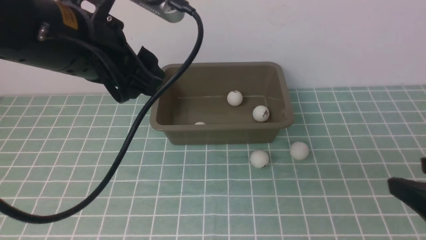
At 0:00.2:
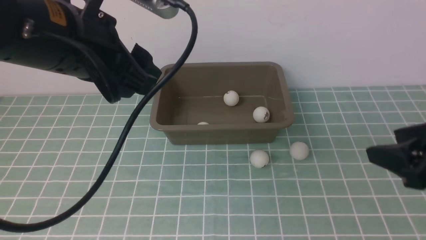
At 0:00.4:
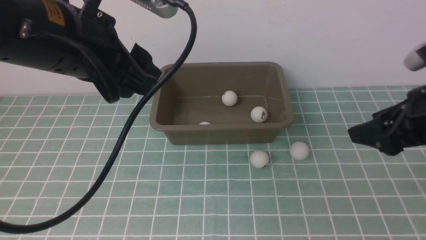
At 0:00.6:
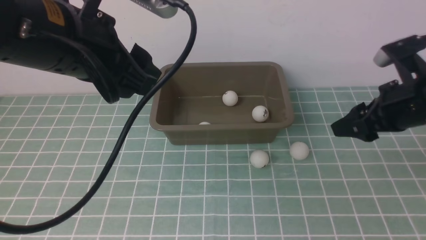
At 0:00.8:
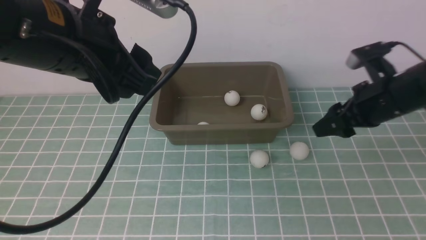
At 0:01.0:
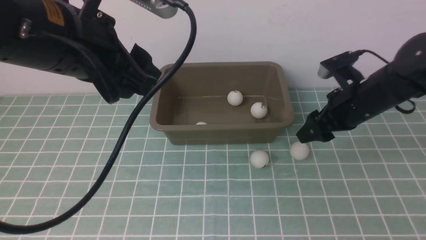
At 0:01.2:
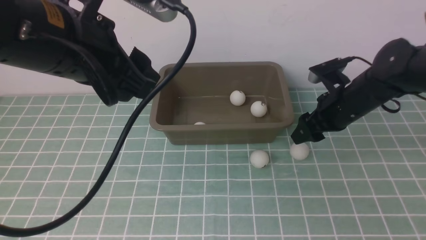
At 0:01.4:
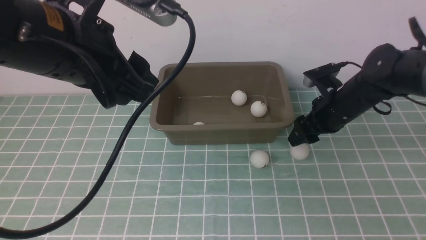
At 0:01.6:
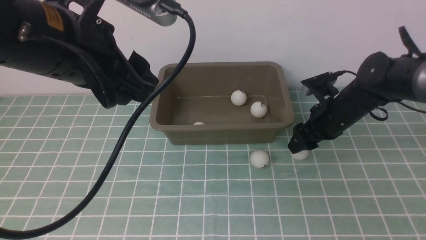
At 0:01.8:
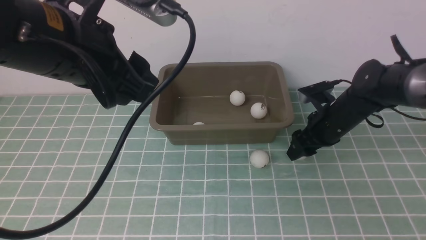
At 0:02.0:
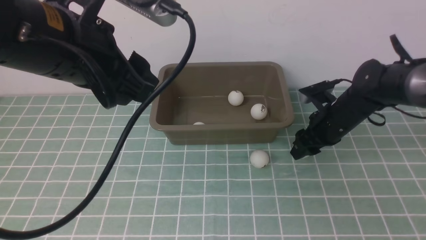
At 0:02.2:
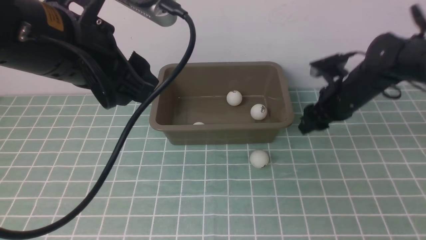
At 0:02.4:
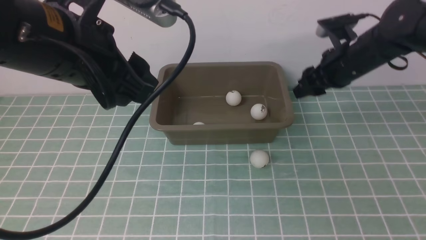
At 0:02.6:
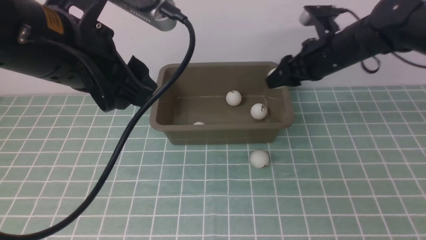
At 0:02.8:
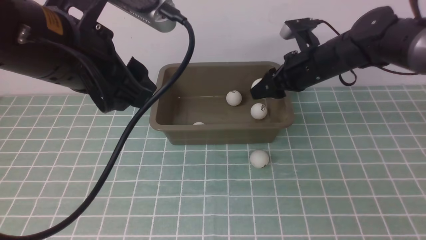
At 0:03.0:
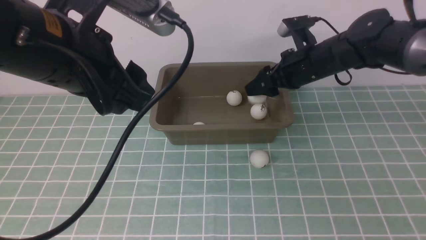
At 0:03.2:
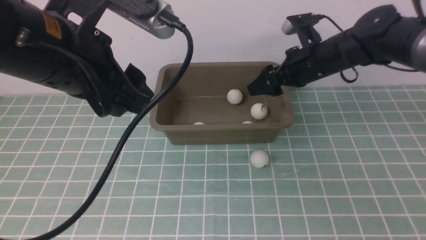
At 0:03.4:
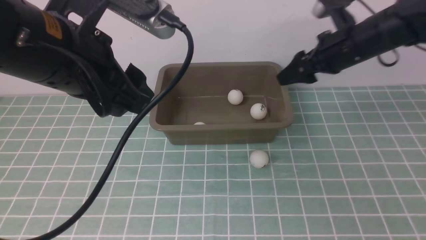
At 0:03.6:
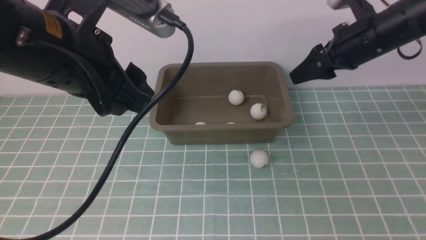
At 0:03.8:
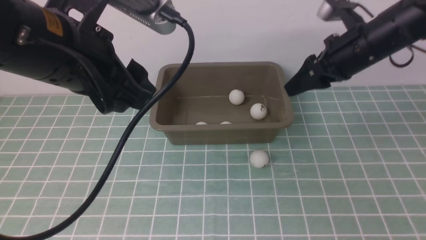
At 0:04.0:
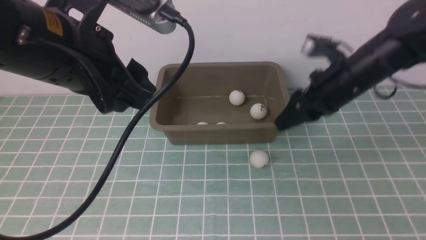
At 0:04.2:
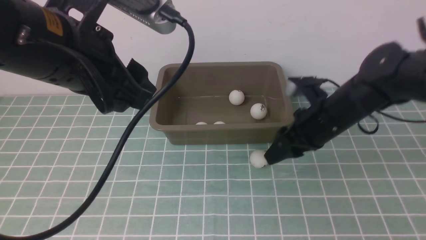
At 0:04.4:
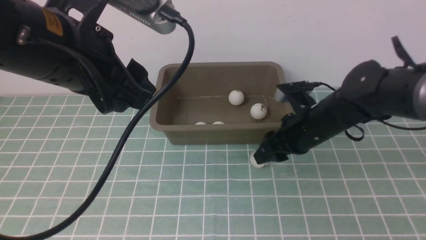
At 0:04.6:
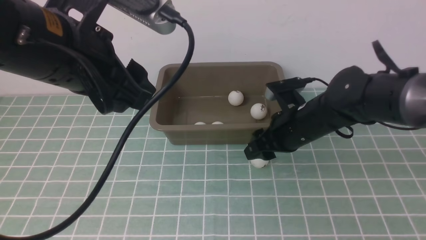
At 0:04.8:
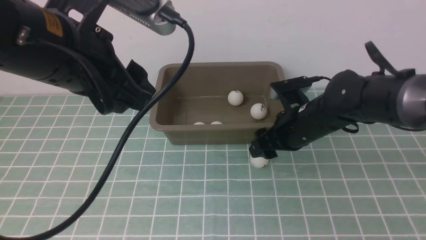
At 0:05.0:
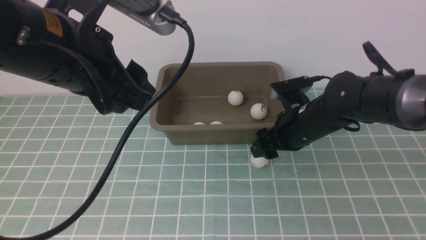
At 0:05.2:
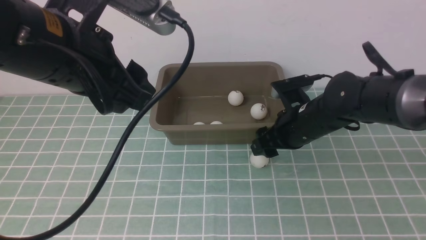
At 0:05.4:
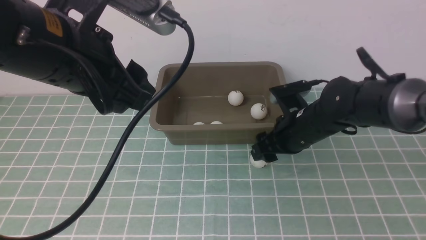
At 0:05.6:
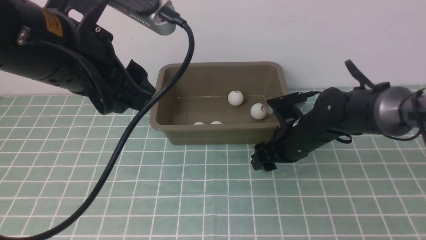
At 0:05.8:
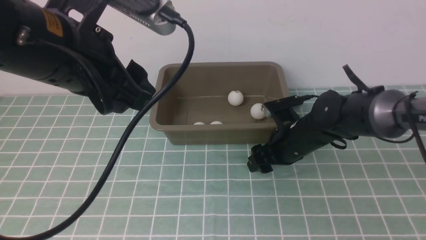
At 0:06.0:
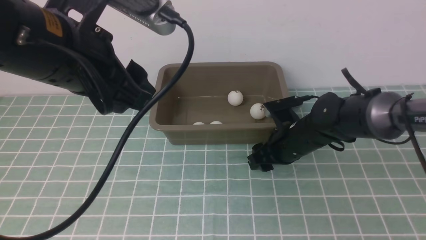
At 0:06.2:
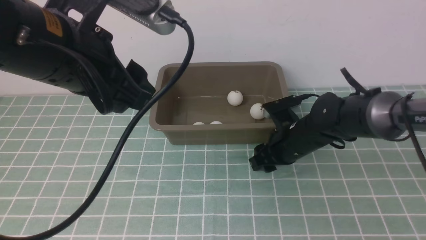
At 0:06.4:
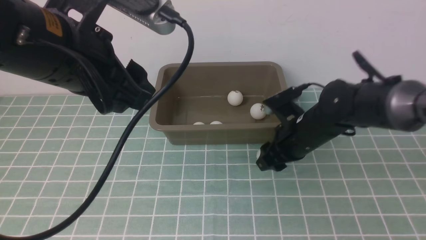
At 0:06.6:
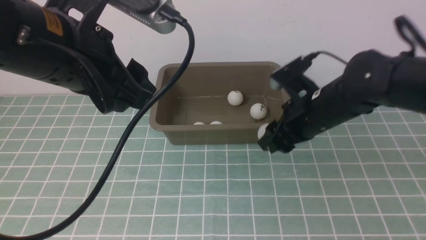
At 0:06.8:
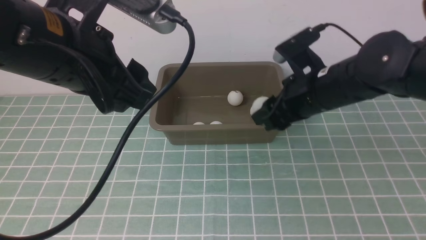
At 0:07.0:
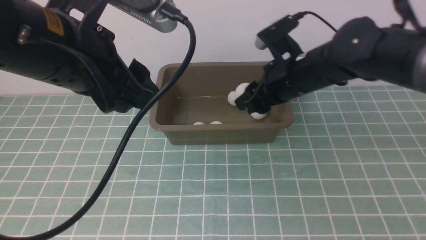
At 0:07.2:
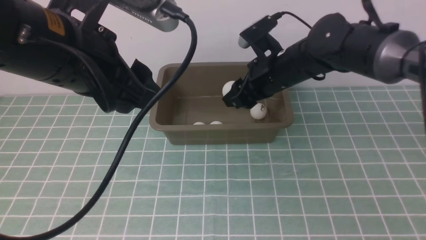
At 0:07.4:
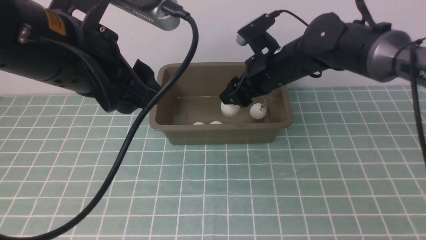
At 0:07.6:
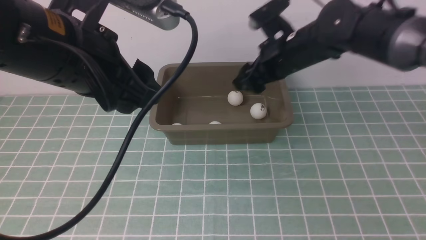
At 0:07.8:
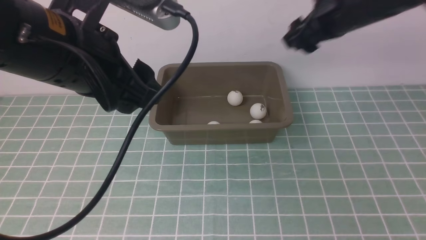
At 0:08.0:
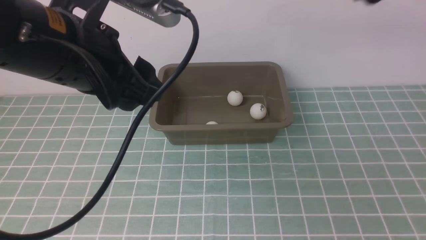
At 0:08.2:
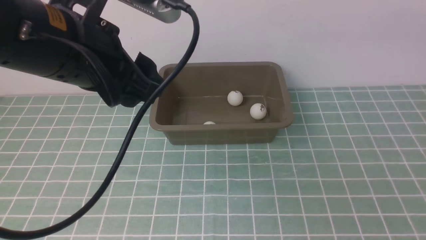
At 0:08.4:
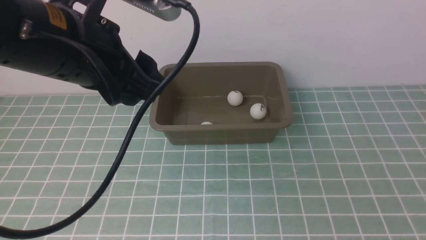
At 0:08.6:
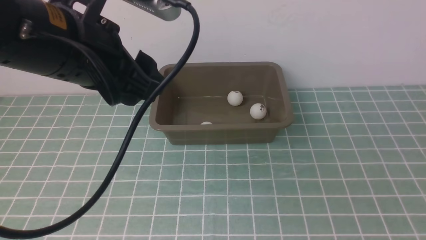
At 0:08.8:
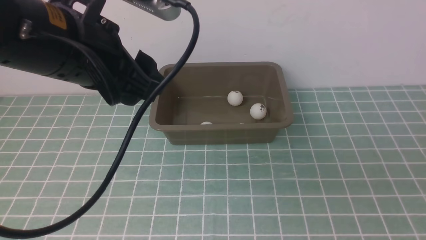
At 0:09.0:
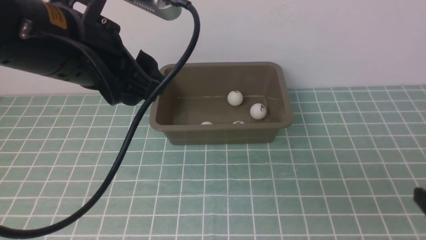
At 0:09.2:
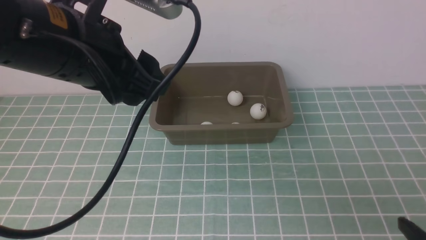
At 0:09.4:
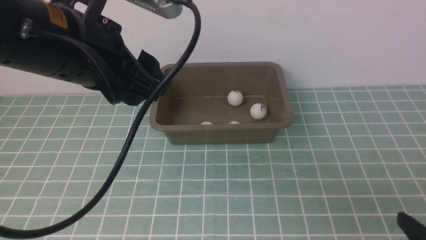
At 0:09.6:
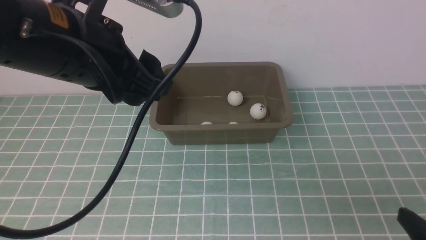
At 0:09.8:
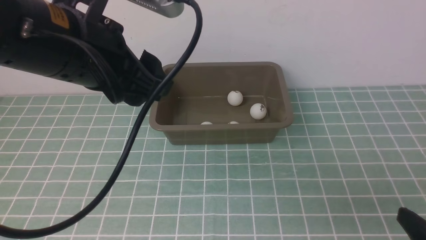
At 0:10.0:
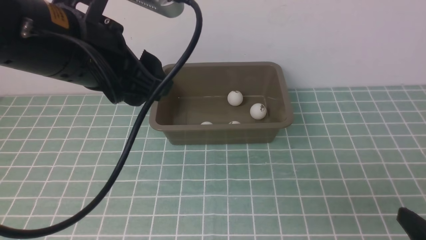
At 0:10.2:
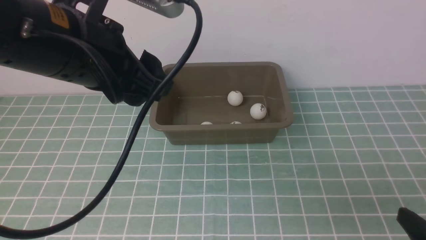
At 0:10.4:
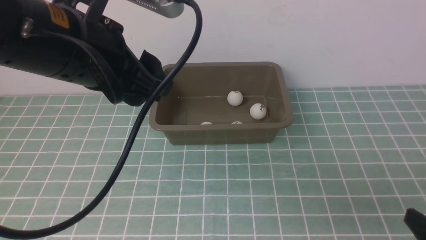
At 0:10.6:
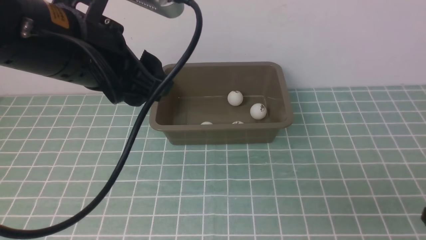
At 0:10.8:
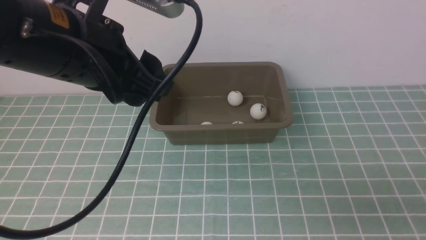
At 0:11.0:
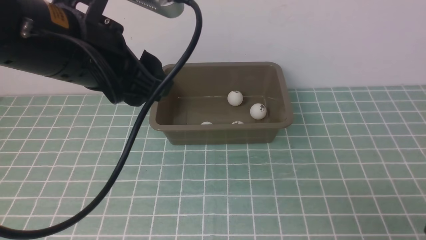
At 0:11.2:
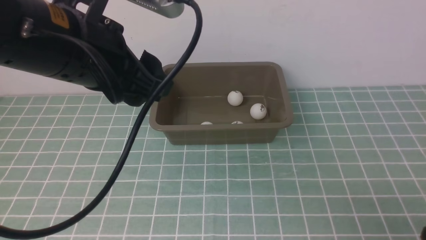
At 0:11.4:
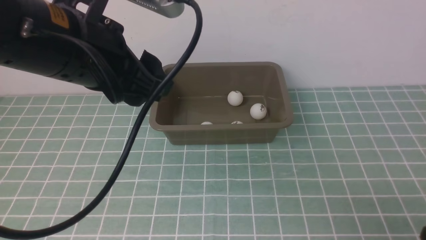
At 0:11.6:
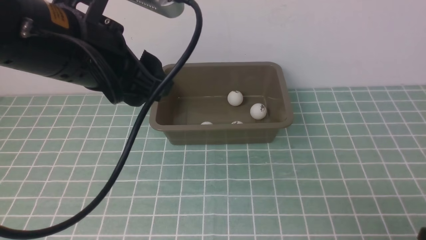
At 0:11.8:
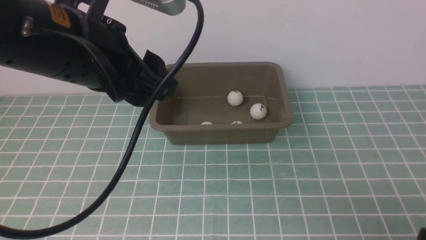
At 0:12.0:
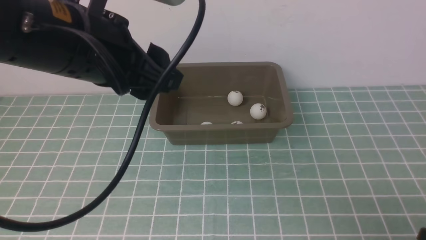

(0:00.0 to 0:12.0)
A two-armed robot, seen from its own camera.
Step, 0:00.0 - 0:02.2: use the right arm to clamp the table tennis ball closest to it.
Step, 0:02.4 - 0:03.2: use the right arm to put the table tennis ball into the box.
Step, 0:03.4 - 0:06.4: use the right arm to clamp the table tennis ball closest to it.
Step, 0:06.6 - 0:07.6: use the right arm to put the table tennis ball into the box.
0:00.0 - 0:01.6: The right gripper heads forward and downward, covering about 20 cm.
0:01.6 - 0:03.0: The right gripper shifts about 10 cm upward, and closes, then reopens.
0:03.0 - 0:04.4: The right gripper moves backward, some 10 cm, and closes up.
0:04.4 - 0:06.0: The right gripper shifts roughly 5 cm downward, and opens.
0:06.0 - 0:07.6: The right gripper goes some 15 cm upward, and opens.
0:07.6 - 0:09.0: The right gripper moves backward and to the right, about 35 cm.
0:09.0 - 0:10.4: The right gripper travels downward by about 5 cm.
0:10.4 - 0:12.0: The grippers move only a little.

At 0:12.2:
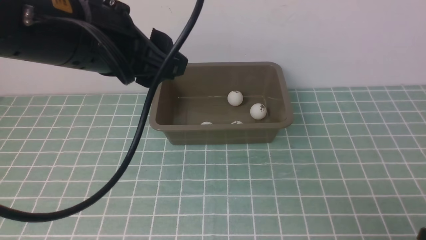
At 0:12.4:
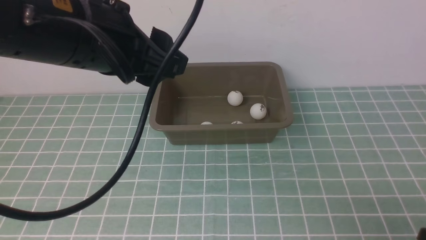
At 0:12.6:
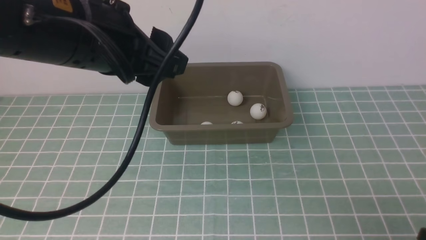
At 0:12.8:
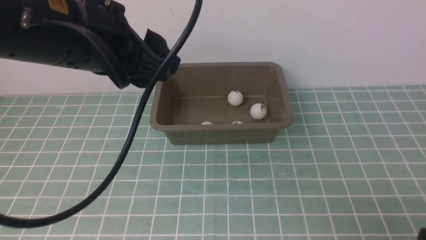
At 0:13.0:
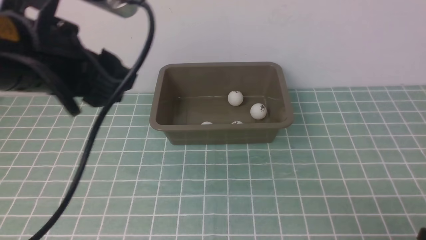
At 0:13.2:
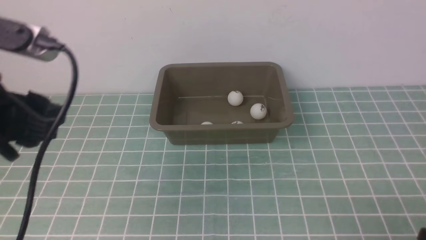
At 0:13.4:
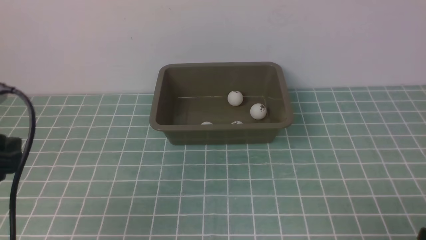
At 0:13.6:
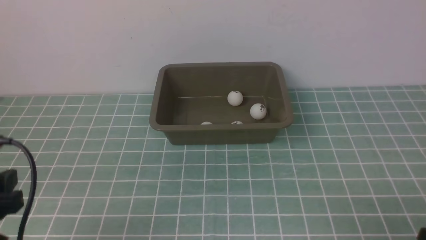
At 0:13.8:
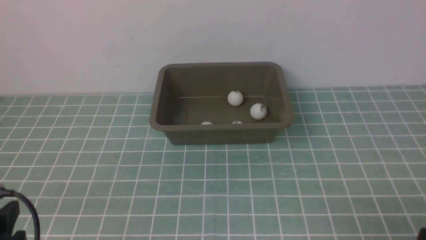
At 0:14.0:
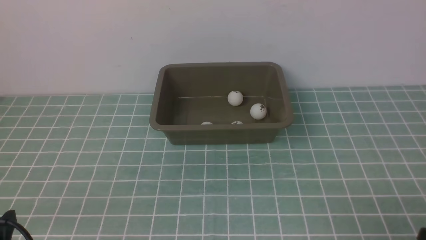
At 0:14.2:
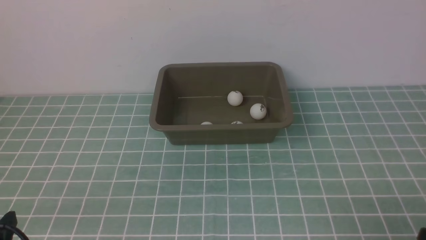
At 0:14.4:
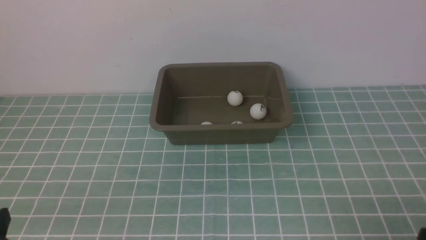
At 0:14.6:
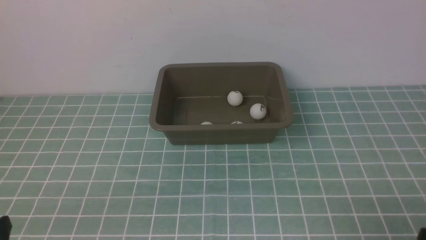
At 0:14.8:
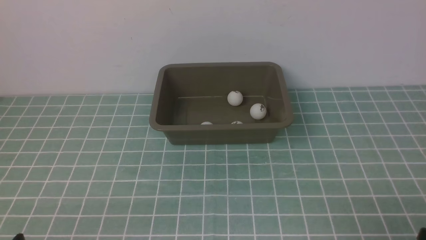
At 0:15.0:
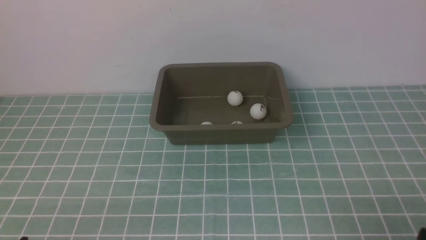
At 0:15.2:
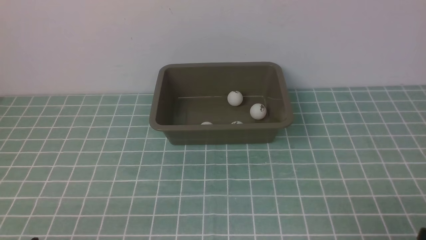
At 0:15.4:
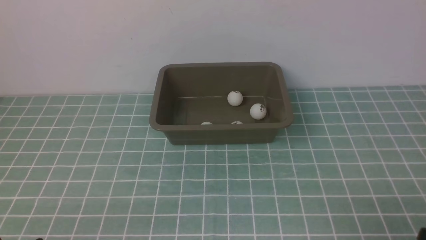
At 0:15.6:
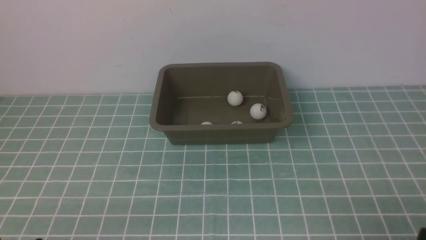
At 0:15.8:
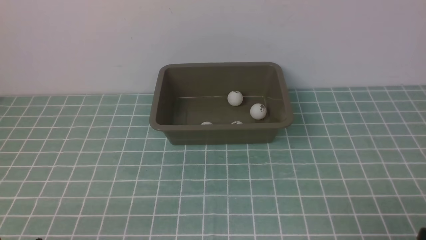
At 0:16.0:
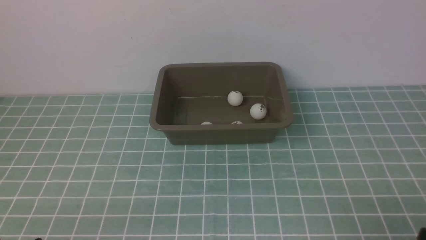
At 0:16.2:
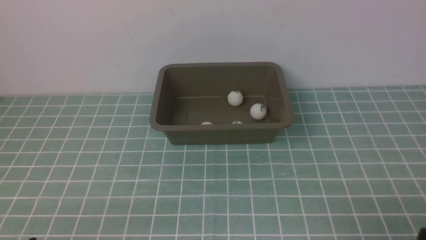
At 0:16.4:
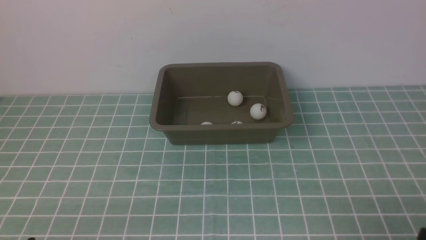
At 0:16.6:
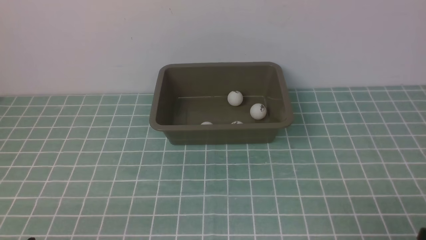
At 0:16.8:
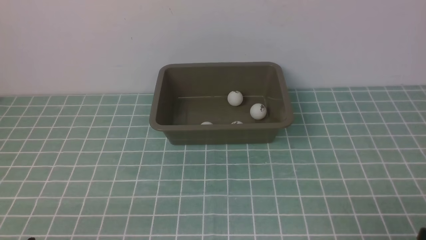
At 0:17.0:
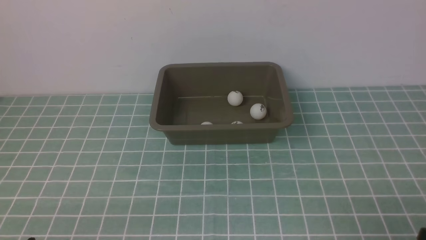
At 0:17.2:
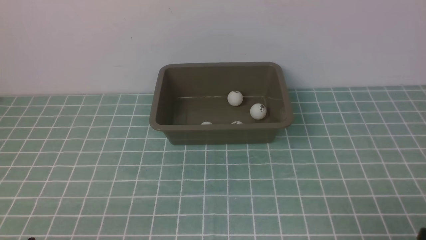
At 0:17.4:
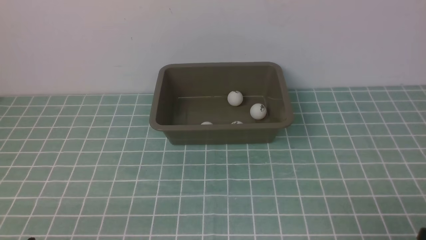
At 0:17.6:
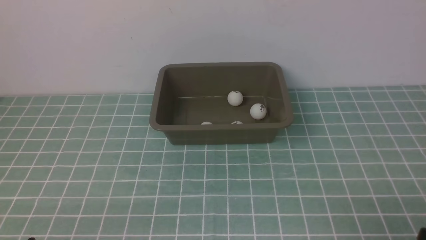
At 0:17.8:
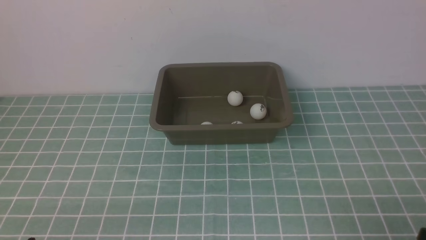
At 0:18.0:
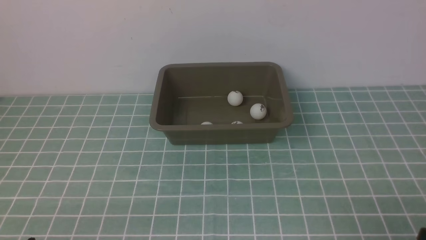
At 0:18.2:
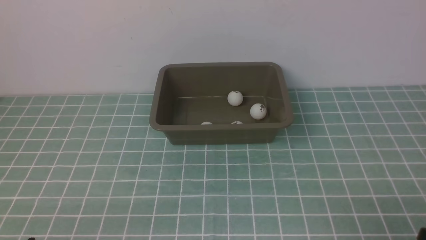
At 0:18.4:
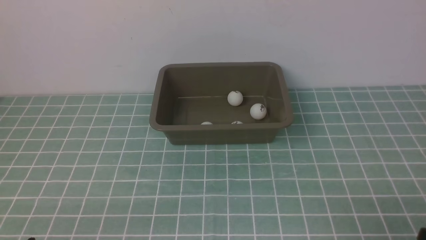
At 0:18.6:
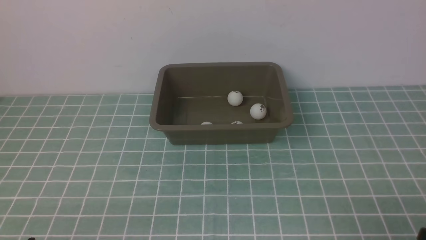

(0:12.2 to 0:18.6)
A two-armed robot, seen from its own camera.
0:12.2 - 0:13.8: The left gripper heads downward, backward and to the left, covering some 30 cm.
0:13.8 - 0:15.4: The left gripper moves downward, roughly 5 cm.
0:15.4 - 0:18.6: The two grippers keep their place.
